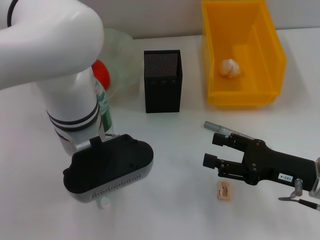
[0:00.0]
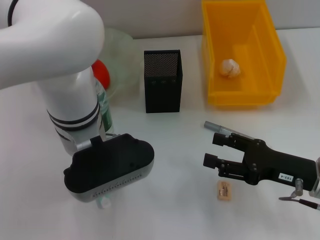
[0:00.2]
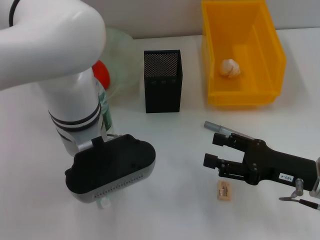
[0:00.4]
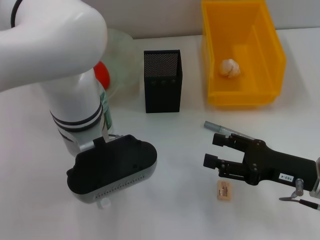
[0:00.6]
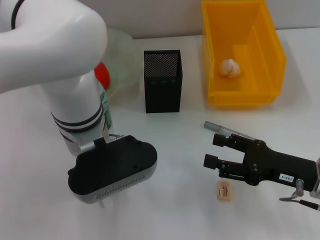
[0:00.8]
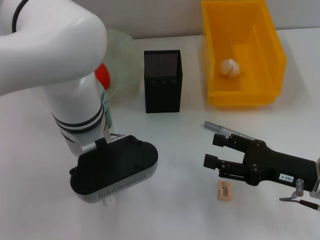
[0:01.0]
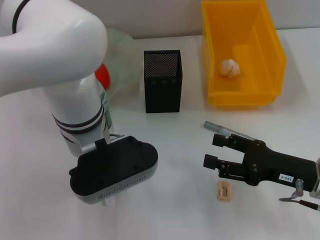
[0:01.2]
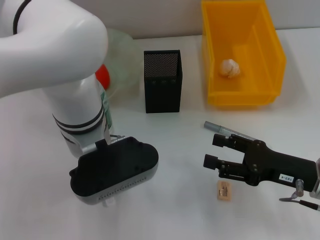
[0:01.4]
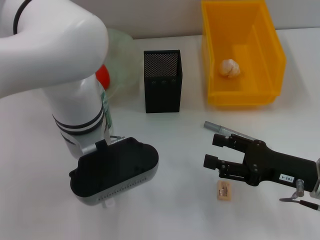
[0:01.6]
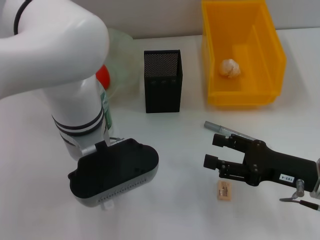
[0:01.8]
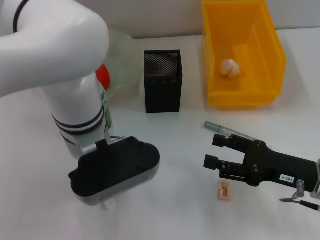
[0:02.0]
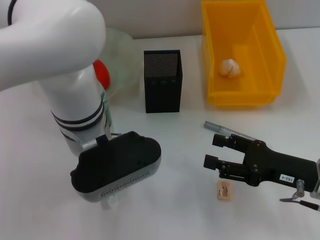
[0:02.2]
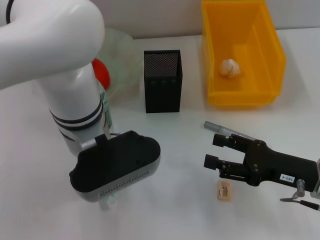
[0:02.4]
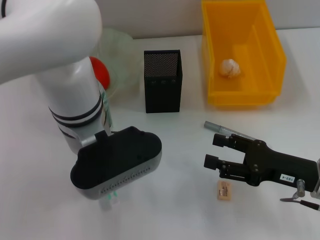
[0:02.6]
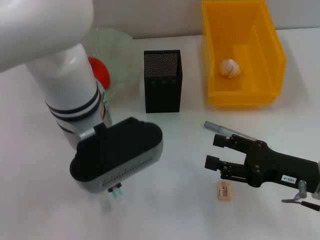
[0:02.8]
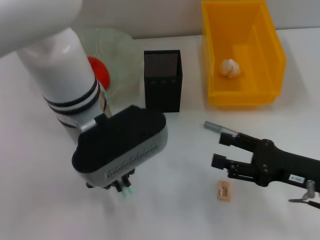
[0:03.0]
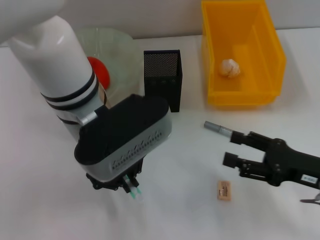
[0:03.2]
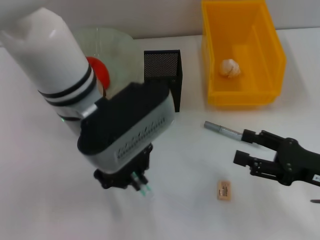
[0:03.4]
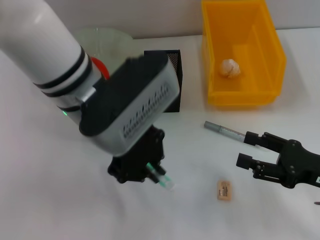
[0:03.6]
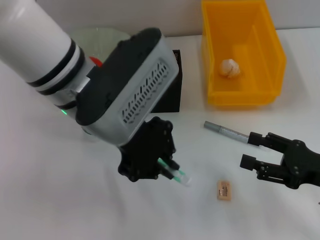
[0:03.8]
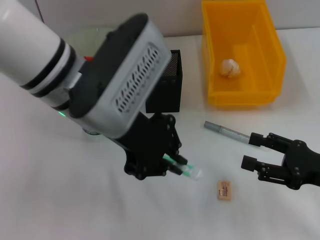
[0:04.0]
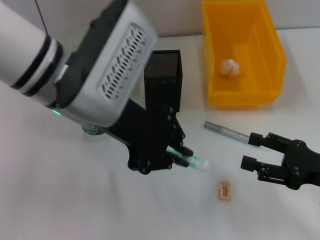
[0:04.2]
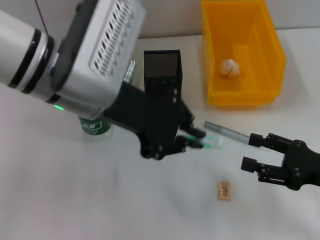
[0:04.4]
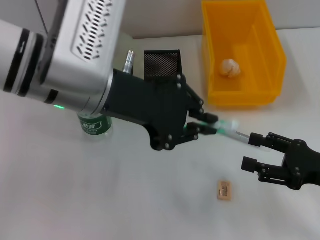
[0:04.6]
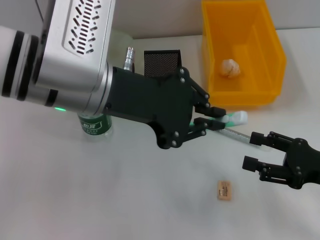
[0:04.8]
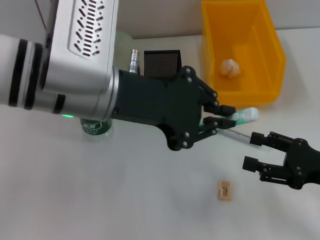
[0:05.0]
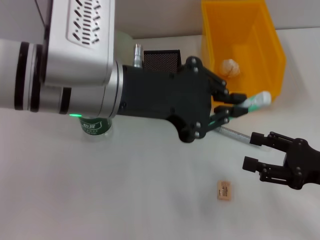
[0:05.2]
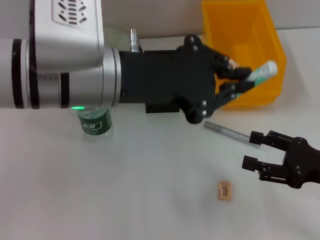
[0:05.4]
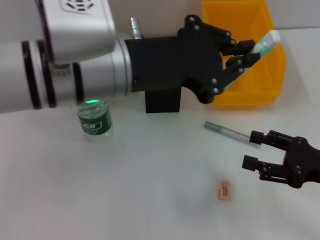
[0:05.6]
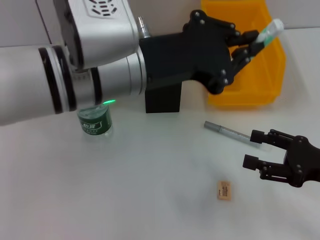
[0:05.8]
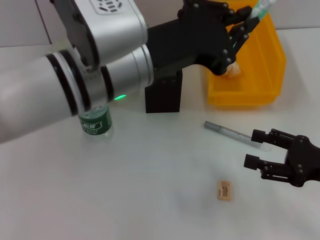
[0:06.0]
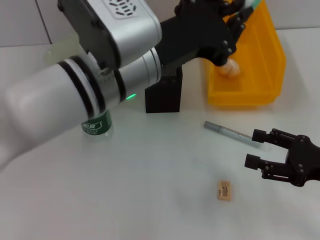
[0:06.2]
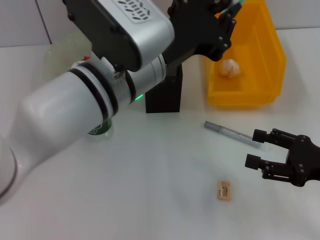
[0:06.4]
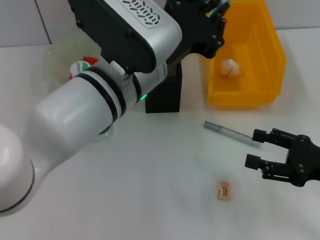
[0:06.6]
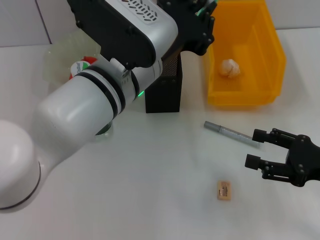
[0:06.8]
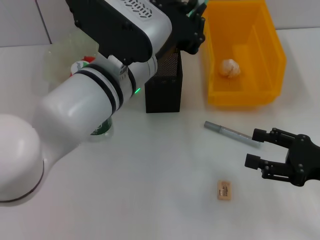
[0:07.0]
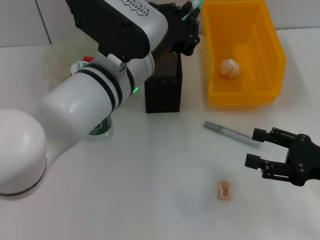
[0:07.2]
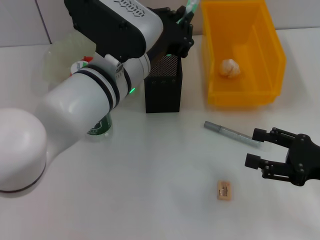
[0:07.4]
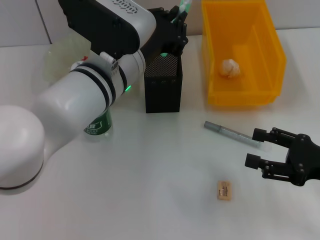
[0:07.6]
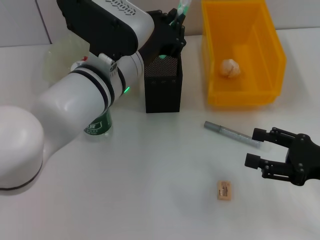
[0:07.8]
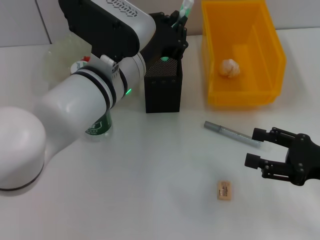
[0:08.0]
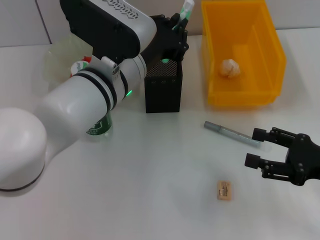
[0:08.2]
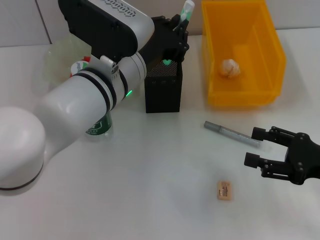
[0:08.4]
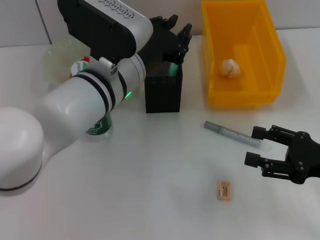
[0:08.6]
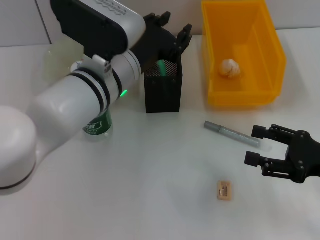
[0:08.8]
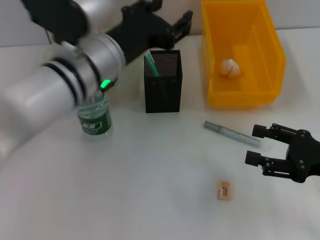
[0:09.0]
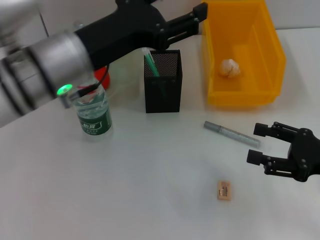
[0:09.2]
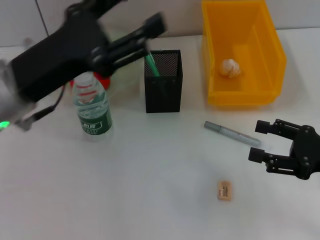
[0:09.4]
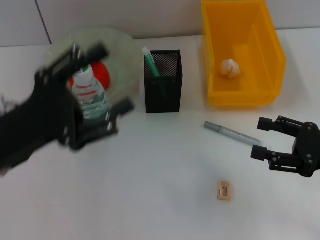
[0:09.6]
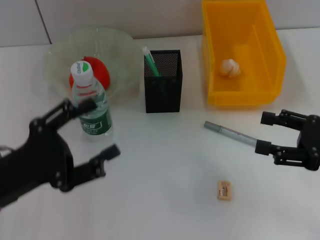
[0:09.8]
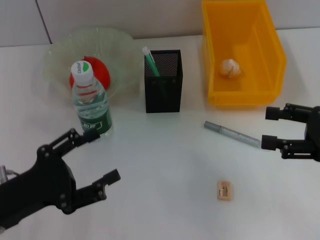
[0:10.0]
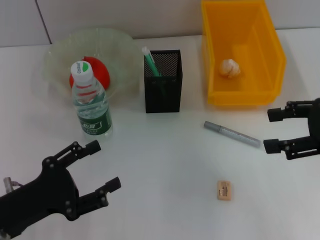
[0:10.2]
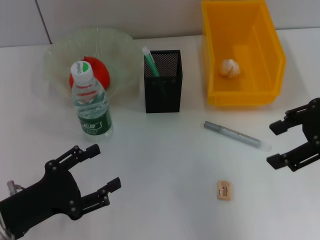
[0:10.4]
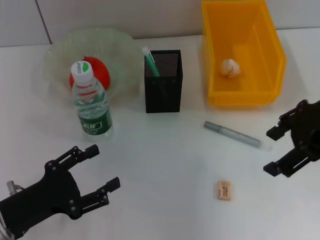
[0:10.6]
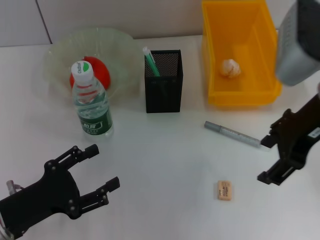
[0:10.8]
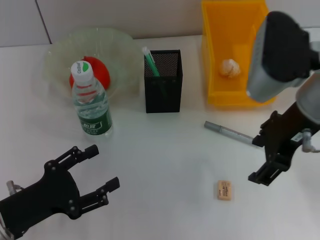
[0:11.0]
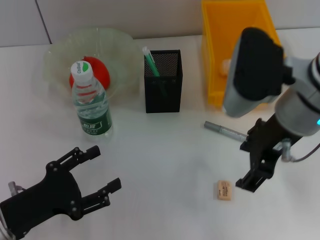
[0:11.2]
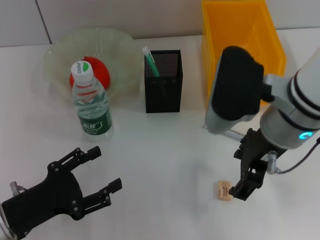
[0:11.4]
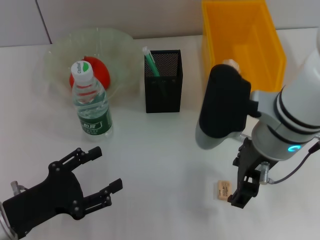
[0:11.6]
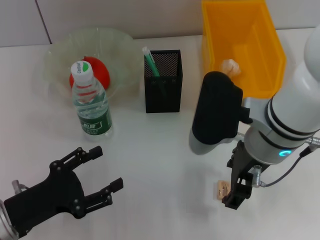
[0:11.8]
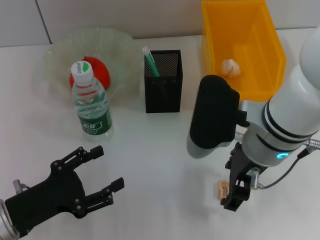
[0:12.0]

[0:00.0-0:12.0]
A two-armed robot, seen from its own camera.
Step, 0:02.0 to 0:08.6: Place the blue utility knife into the pen holder with the left hand.
0:00.0 to 0:01.6: The left gripper closes its fingers.
0:03.0 to 0:04.4: The left gripper shifts about 5 cm upward.
0:06.0 to 0:07.6: The left gripper is displaced downward by approximately 5 cm.
0:07.6 to 0:09.0: The left gripper opens its fingers.
0:09.0 to 0:10.4: The right gripper travels upward by roughly 15 cm. The left gripper moves to the left, downward and backward, approximately 25 cm, and opens its fingers.
0:10.4 to 0:12.0: The right gripper goes approximately 15 cm to the left and downward.

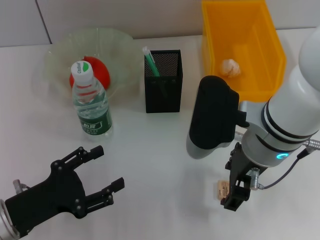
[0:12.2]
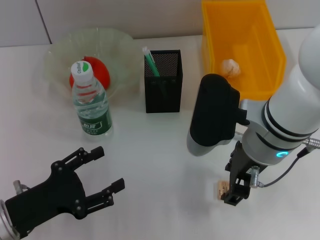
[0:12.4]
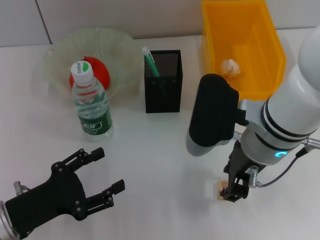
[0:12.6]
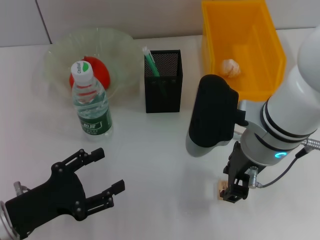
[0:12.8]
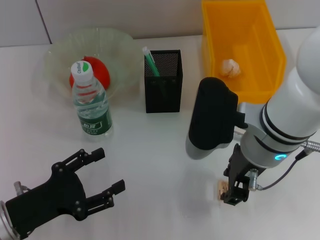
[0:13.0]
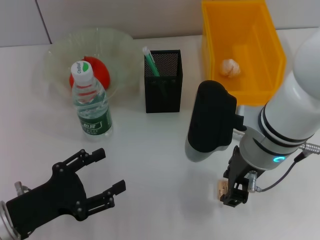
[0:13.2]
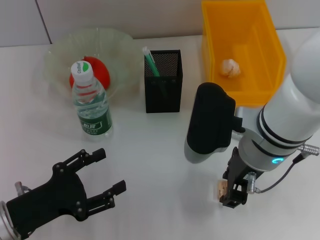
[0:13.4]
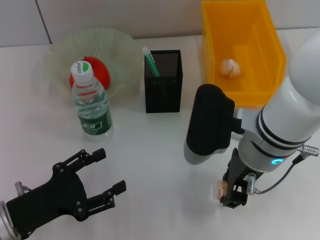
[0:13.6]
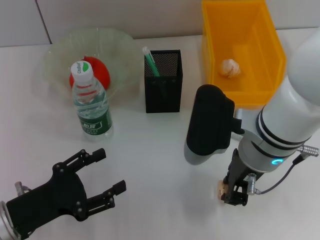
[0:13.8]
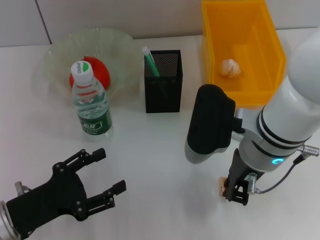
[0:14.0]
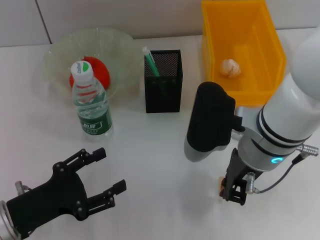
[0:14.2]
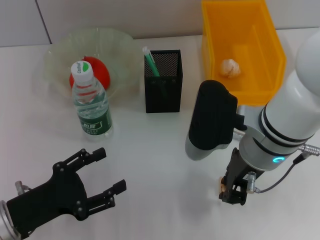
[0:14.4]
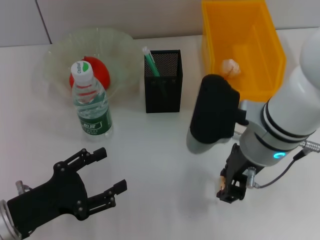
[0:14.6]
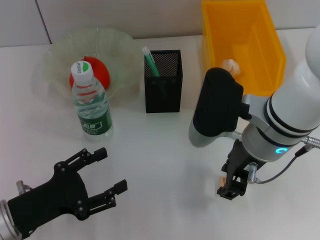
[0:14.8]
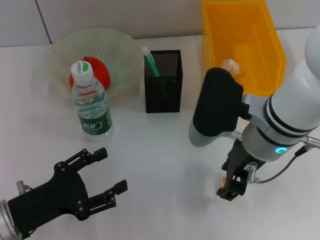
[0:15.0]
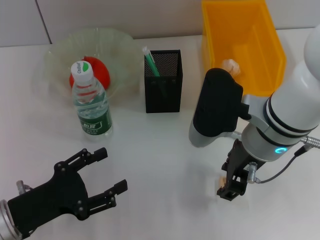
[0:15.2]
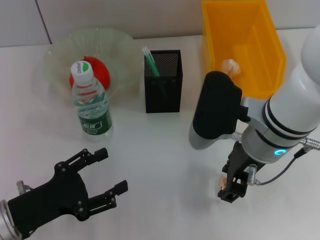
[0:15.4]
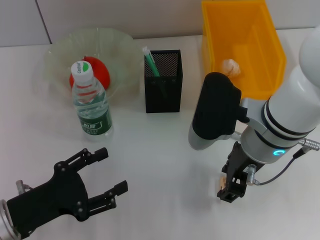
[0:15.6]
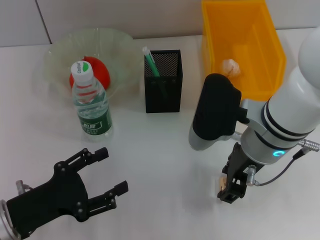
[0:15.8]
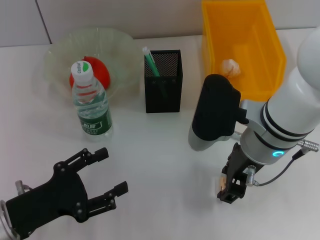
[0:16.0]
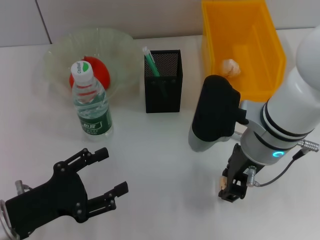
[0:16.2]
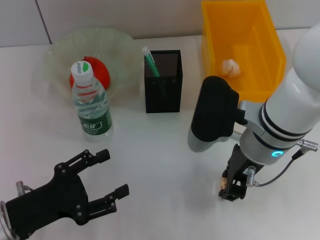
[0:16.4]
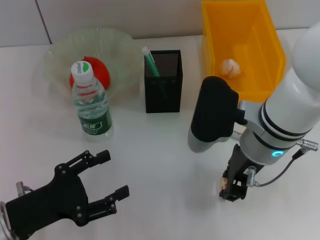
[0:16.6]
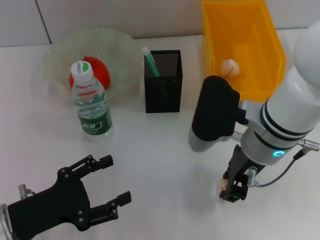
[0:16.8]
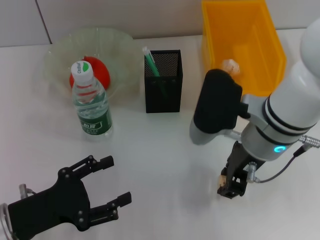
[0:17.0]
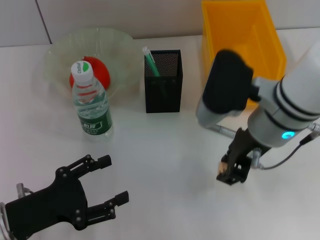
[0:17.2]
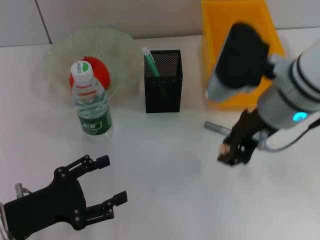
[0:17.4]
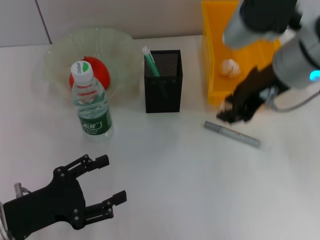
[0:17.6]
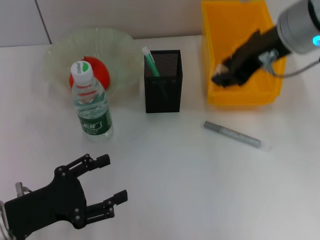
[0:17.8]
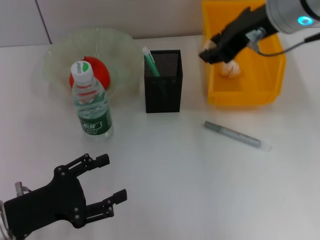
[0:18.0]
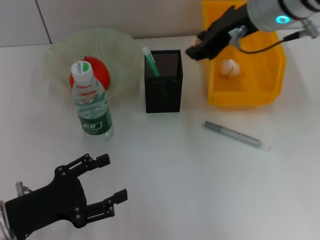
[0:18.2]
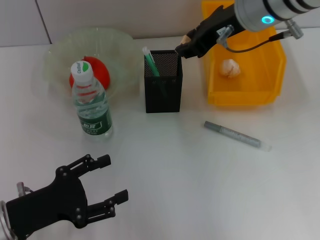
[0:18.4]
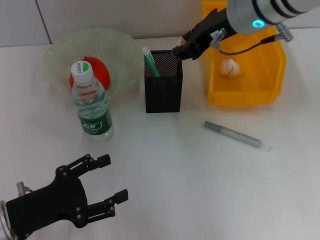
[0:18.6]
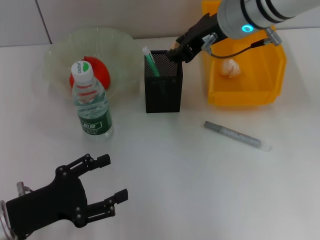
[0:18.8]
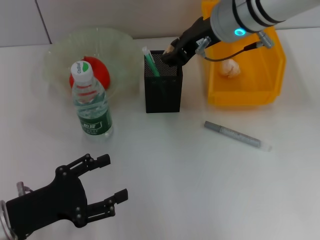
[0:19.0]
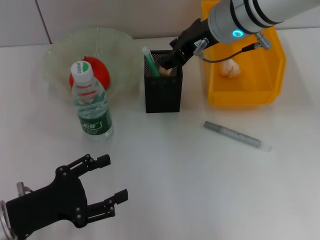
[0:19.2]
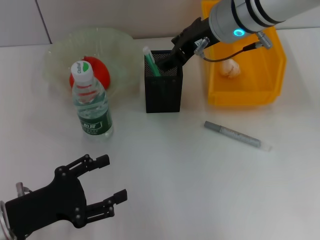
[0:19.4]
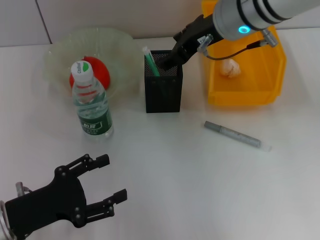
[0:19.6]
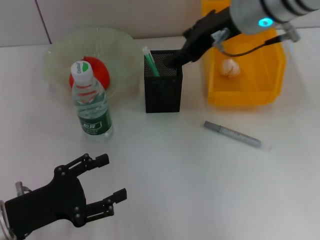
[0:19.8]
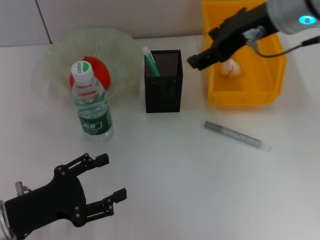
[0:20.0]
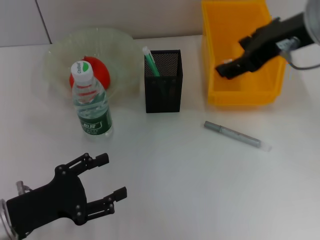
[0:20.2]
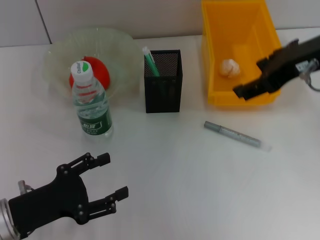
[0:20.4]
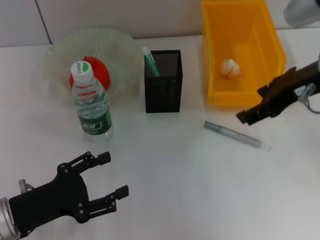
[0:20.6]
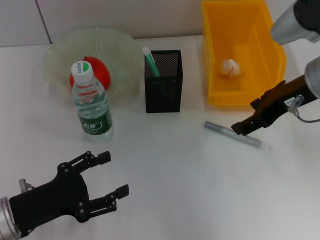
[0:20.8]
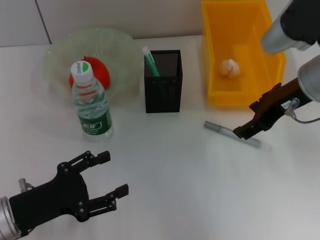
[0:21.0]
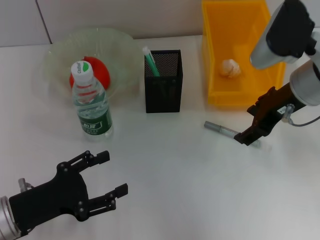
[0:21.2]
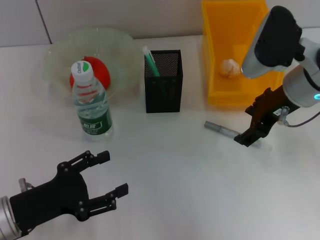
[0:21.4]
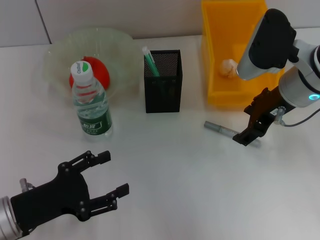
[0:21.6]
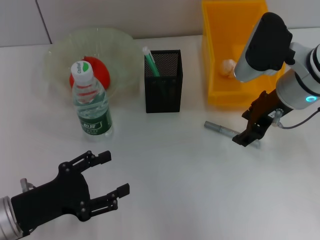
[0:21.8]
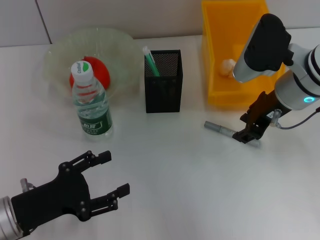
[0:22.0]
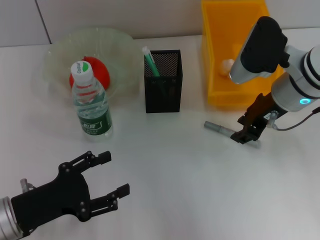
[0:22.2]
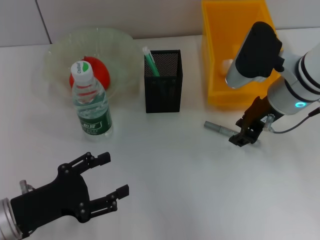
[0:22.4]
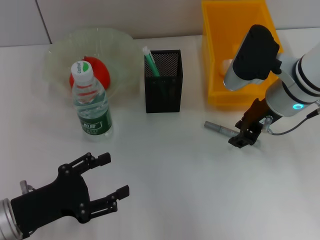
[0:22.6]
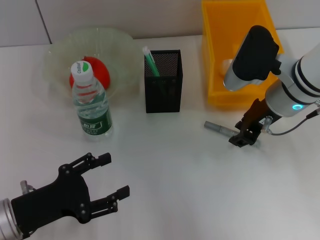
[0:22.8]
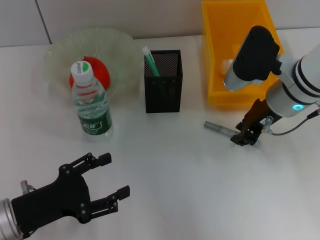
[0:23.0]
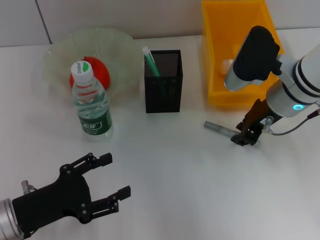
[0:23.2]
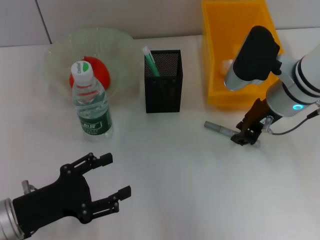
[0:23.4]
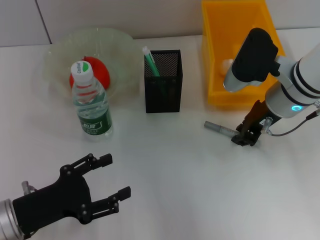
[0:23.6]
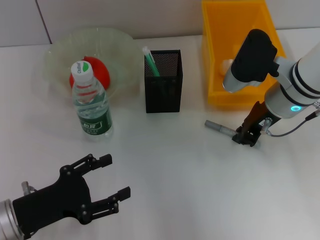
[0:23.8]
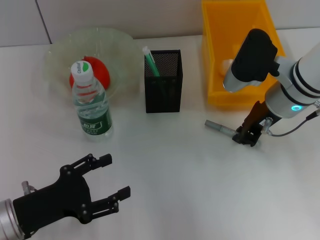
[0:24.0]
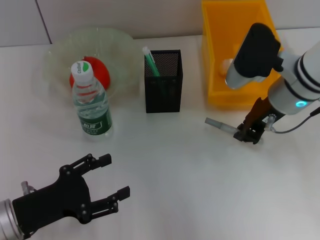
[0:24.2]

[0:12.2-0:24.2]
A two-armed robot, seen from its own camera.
Step, 0:12.2 to 0:16.0: Grab the eraser with the right hand.
Step, 0:16.4 to 0:19.6: Put the eraser into the pen holder with the right hand.
Step, 0:19.8 to 0:23.8: Grab the gray glue with the right hand.
0:12.2 to 0:13.8: The right gripper closes up.
0:13.8 to 0:15.2: The right gripper closes, then opens again.
0:15.2 to 0:16.6: Neither gripper changes place.
0:16.6 to 0:18.2: The right gripper goes approximately 15 cm upward and forward.
0:18.2 to 0:19.8: The right gripper opens up.
0:19.8 to 0:21.2: The right gripper shifts about 10 cm downward and to the right.
0:21.2 to 0:22.6: The right gripper closes its fingers.
0:22.6 to 0:24.2: The right gripper closes its fingers.
